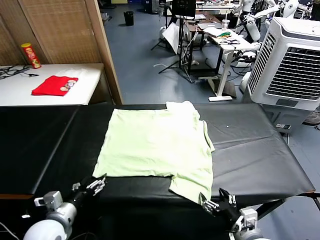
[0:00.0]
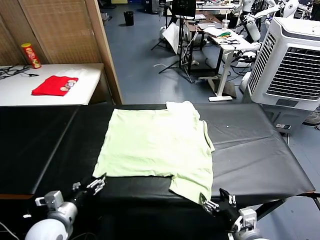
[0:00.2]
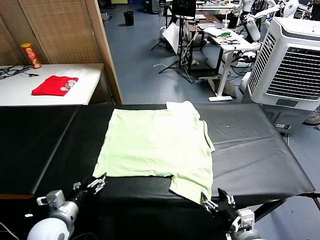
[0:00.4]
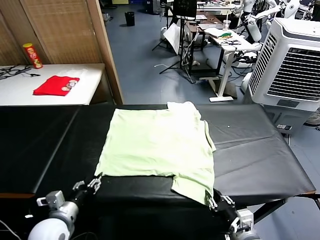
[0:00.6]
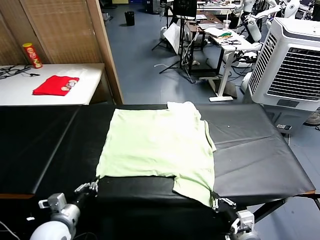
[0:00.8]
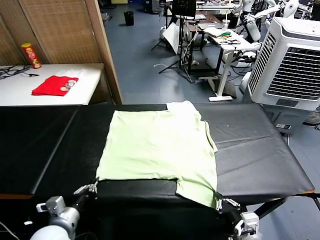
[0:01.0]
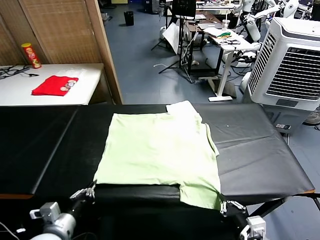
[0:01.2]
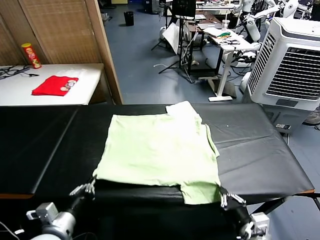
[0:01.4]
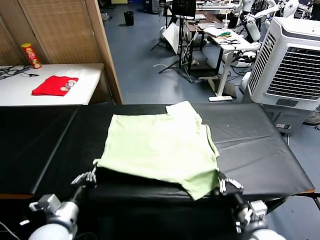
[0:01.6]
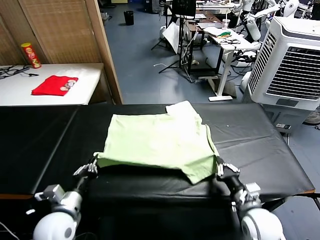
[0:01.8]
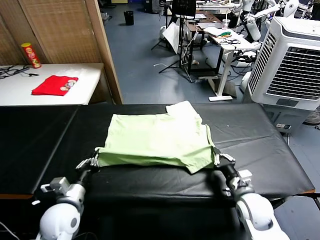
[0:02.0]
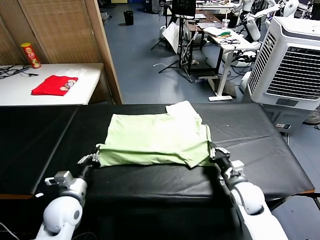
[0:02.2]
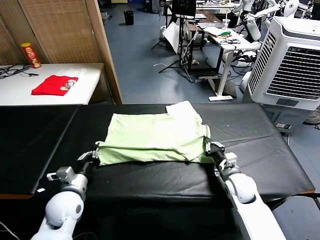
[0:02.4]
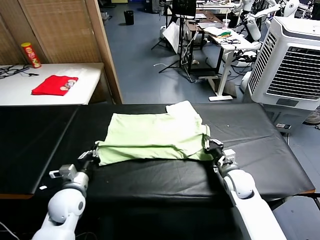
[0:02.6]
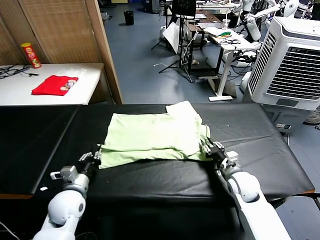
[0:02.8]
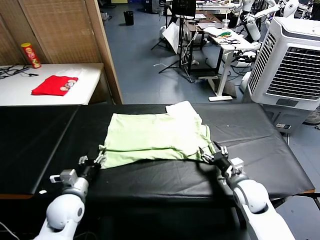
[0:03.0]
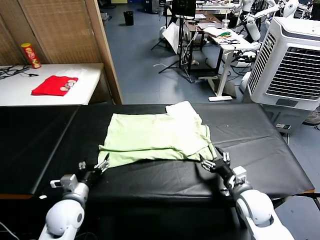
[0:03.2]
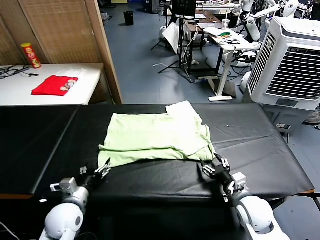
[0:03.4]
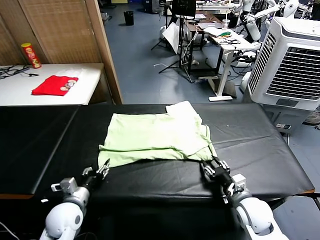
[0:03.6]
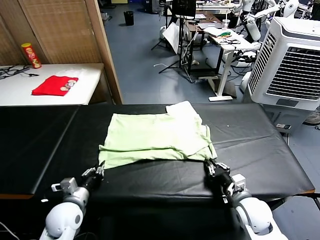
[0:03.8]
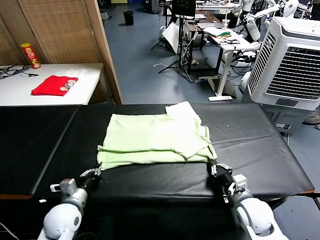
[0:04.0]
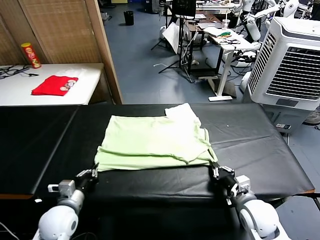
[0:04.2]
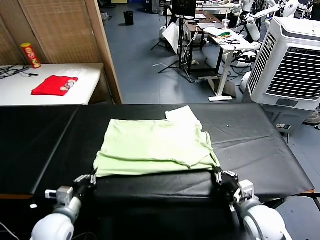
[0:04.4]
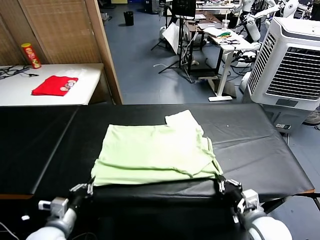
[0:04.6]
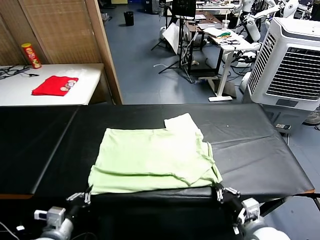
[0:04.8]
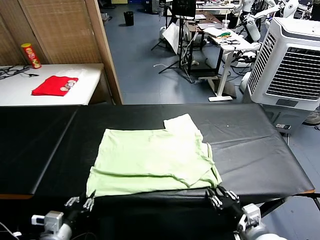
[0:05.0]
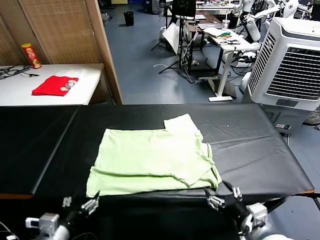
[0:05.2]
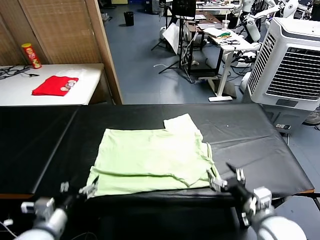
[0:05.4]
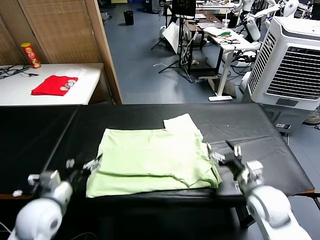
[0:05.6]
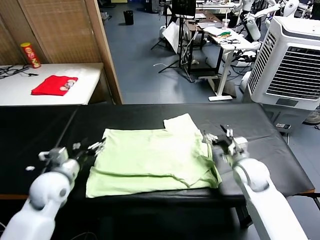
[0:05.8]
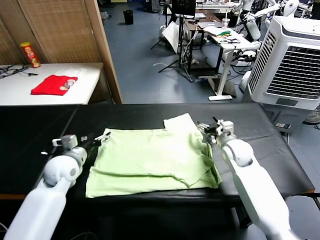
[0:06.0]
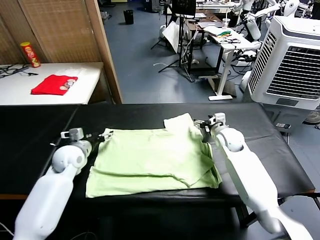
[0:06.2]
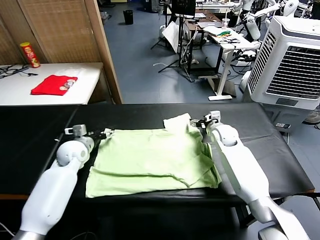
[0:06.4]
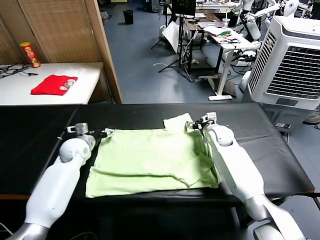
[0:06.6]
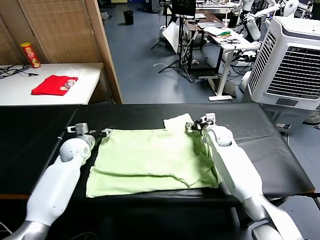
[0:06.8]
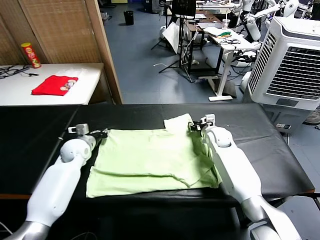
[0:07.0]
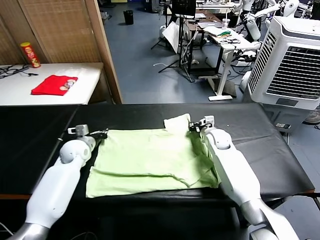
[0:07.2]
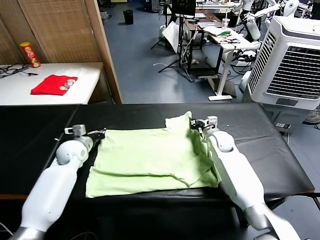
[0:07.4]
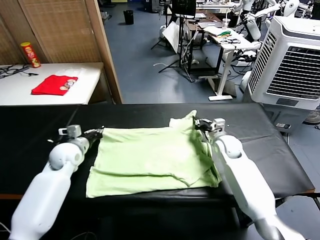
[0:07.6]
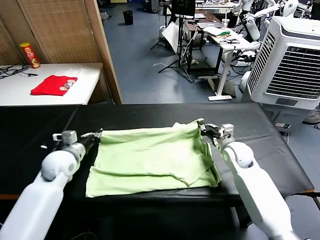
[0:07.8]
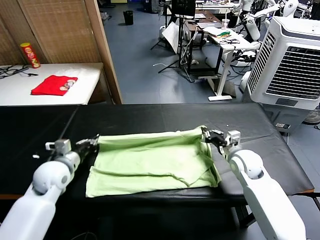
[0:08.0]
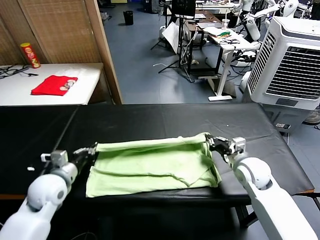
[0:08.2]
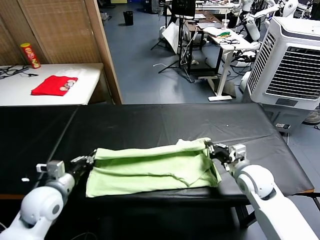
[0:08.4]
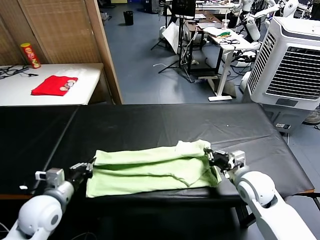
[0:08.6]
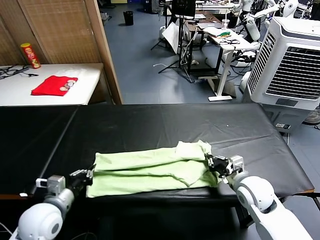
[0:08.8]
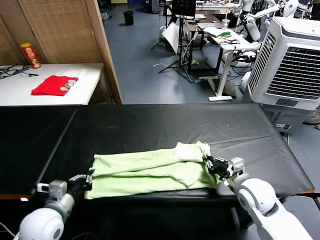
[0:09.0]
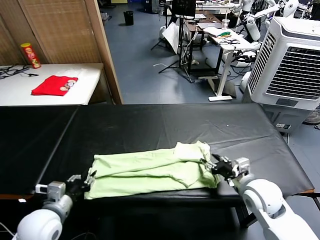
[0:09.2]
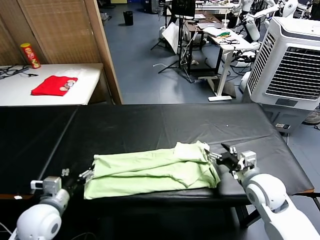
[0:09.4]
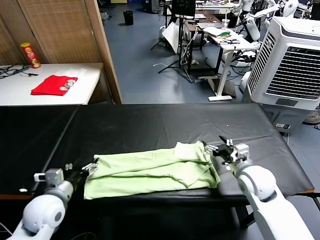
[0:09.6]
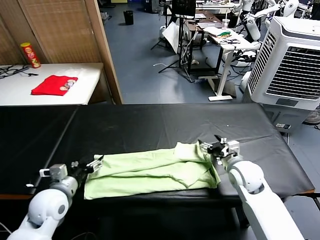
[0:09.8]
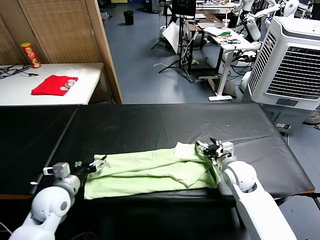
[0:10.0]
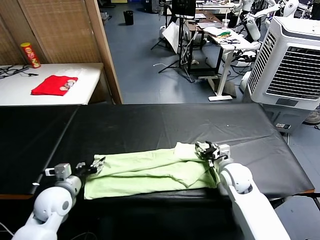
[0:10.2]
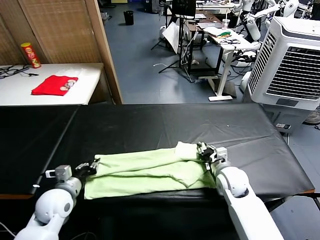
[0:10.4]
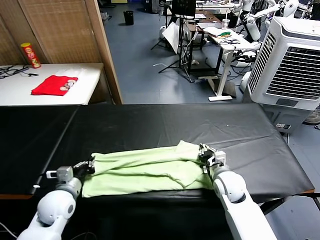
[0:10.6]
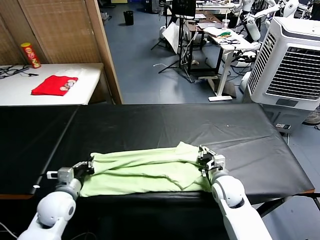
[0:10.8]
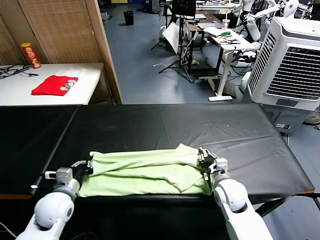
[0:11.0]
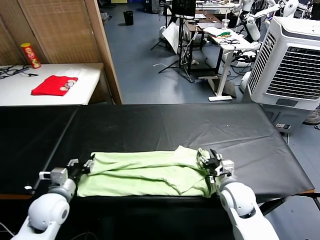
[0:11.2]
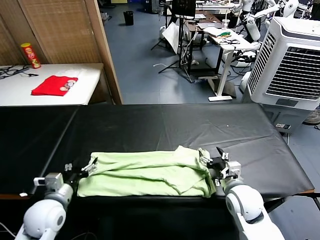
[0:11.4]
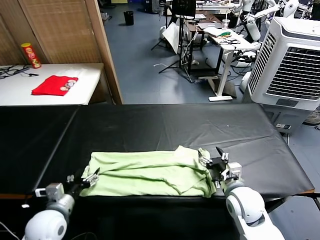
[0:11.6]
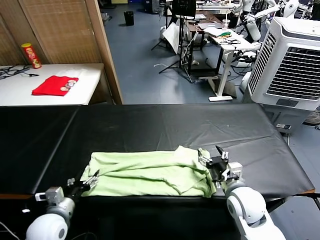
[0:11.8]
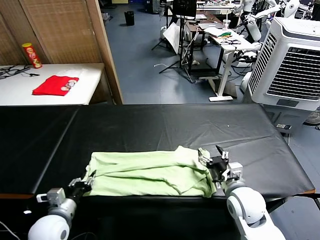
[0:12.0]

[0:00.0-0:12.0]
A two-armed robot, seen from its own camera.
Task of the whole recording: fold and organize the clothes.
Step, 0:00.0 to 0:01.0: use both grippers simultaneously to clamp the lower edge of the clothing fabric.
Step, 0:01.2 to 0:03.0: use both grippers to drag the lower edge of the fabric forward and fold it over the upper edge.
Step, 0:03.2 to 0:05.2: Drag the clothes downward with both gripper.
Step, 0:05.4 to 0:07.0: use both grippers simultaneously to clamp the upper edge of the clothing fabric.
Step, 0:07.2 to 0:09.2: use both grippers to drag the upper edge of the fabric backward and fold it over the lower edge.
0:01.6 to 0:03.0: Both grippers move forward, some 5 cm. The right gripper opens up, while the left gripper opens its fingers.
0:03.0 to 0:04.4: Both grippers move backward, approximately 10 cm. The right gripper closes its fingers, while the left gripper closes.
0:04.4 to 0:06.0: Both grippers travel together forward, roughly 25 cm. The left gripper opens, while the right gripper opens.
0:06.0 to 0:07.6: The left gripper travels forward and back again, approximately 10 cm each way, and closes its fingers, while the right gripper closes up.
0:07.6 to 0:09.0: The grippers both shift backward by roughly 20 cm.
0:09.0 to 0:10.4: The left gripper moves forward, approximately 5 cm, and opens, then closes once more; the right gripper shifts about 10 cm forward and downward, and opens, then closes again.
0:10.4 to 0:12.0: The two grippers go about 10 cm backward. The left gripper opens and closes again. Meanwhile the right gripper opens.

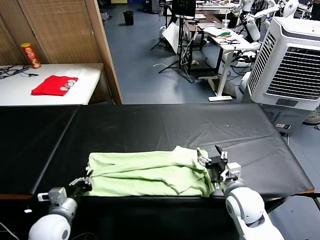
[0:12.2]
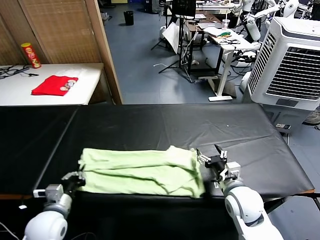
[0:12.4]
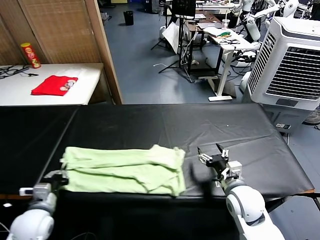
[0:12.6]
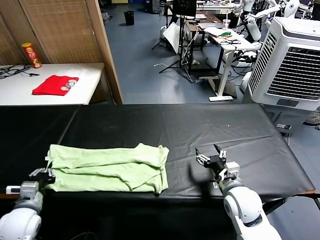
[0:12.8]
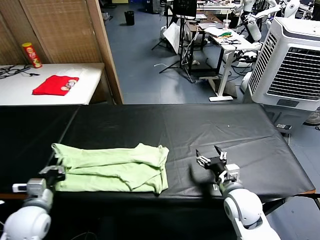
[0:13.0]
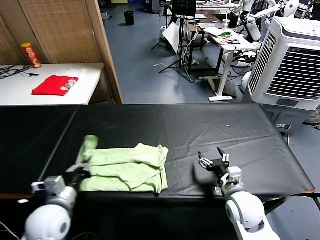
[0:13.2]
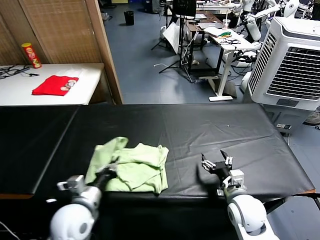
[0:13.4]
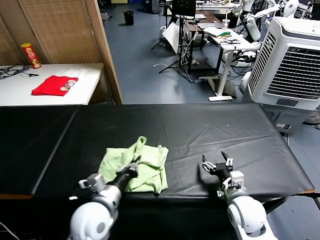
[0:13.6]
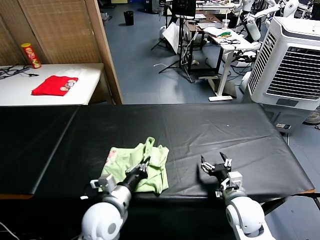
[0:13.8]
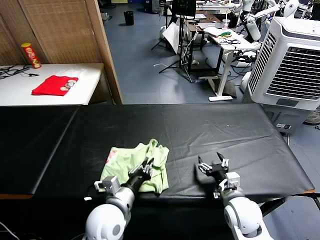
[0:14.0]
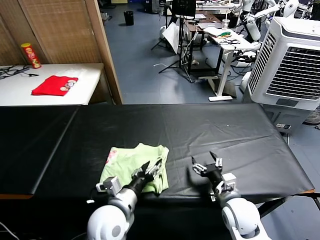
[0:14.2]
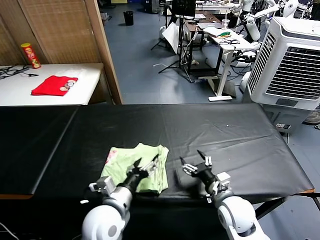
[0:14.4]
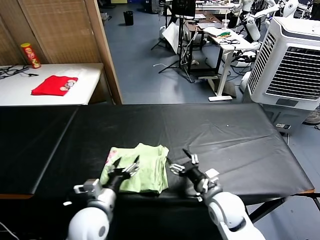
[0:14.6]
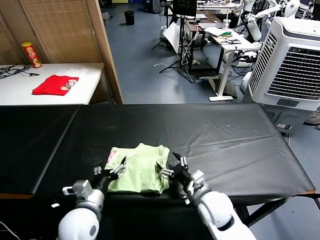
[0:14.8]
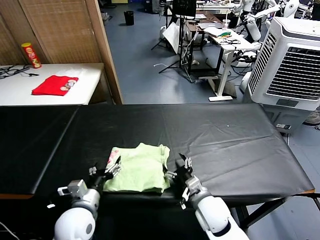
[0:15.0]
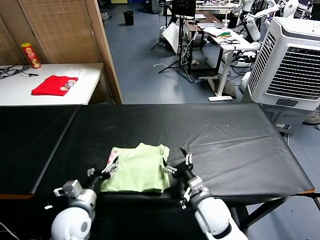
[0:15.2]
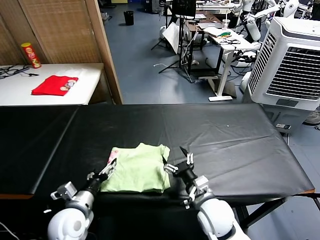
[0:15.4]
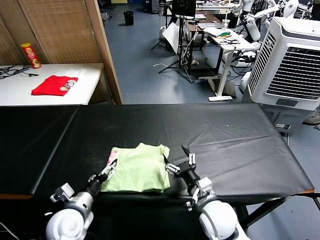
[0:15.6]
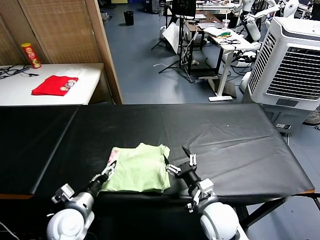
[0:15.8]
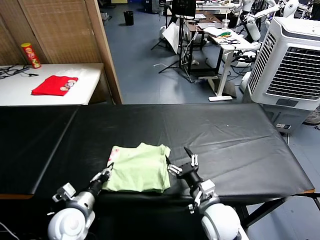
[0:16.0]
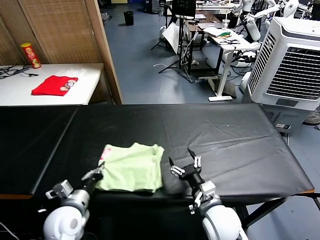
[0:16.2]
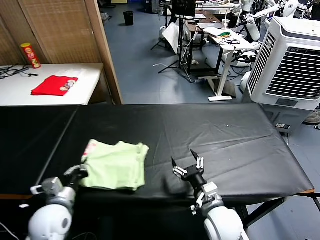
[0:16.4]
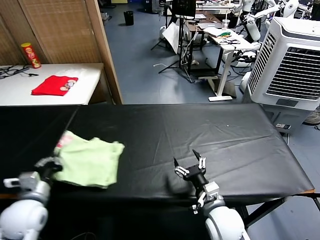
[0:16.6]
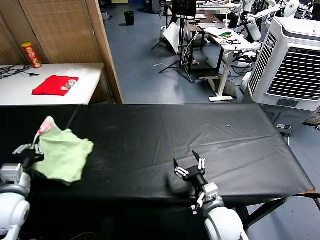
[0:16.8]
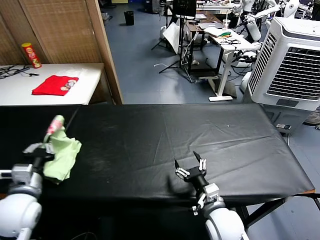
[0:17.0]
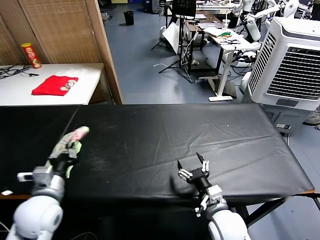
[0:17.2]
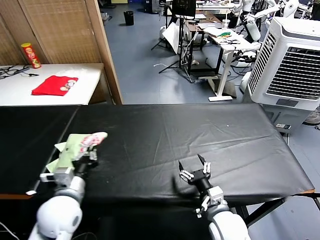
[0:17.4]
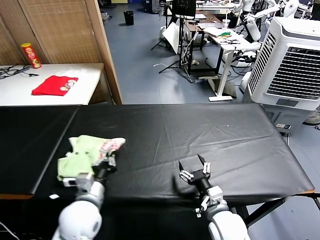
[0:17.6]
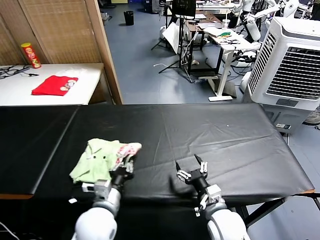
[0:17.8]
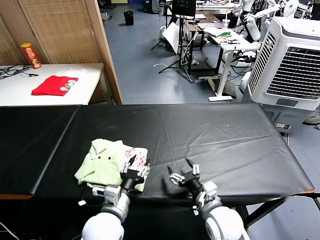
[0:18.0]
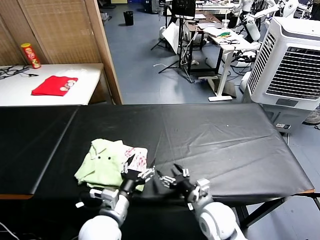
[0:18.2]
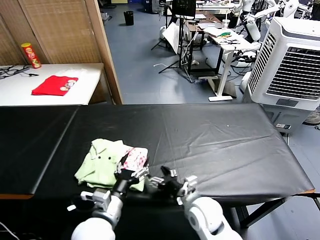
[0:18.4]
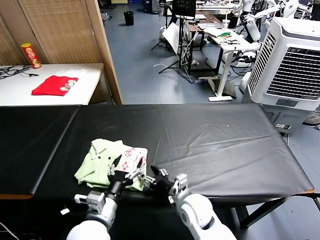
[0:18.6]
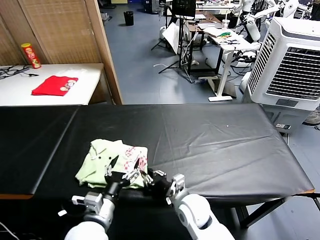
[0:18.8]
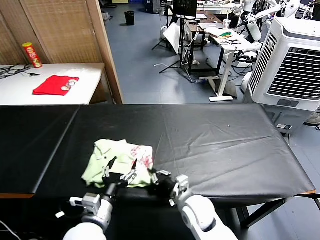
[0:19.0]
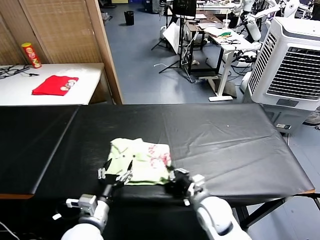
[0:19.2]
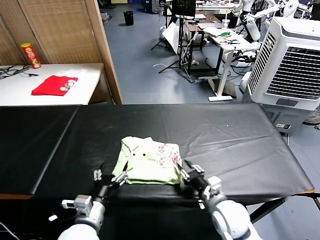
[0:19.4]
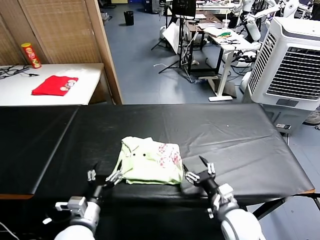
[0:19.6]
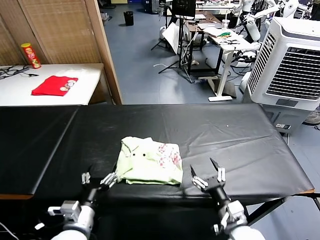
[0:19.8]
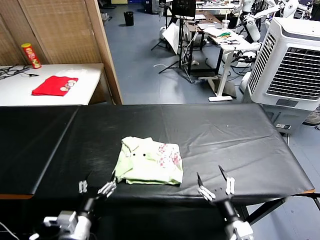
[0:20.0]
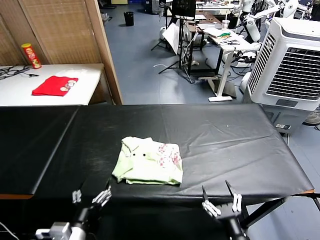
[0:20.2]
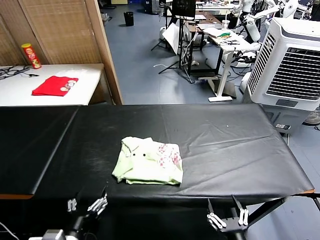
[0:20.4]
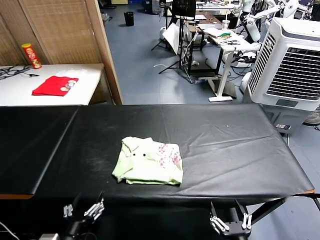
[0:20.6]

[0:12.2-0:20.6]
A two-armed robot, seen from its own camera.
Task of the whole recording: fold and organize the clothes.
Step, 0:12.6 to 0:14.2: use the left gripper to drag the left edge of the fabric to the left and folds it over the right edge.
Step, 0:14.4 to 0:18.0: Flip the folded clothes over with left gripper.
Step, 0:18.2 to 0:19.4: Drag the clothes to the center of the table.
0:12.2 to 0:13.6: The left gripper goes roughly 15 cm to the right and upward.
0:13.6 to 0:15.0: The right gripper travels to the left by about 10 cm. Meanwhile the left gripper is displaced to the left by approximately 5 cm, and opens up.
0:15.0 to 0:16.4: The left gripper heads to the left, covering about 5 cm, and closes.
0:16.4 to 0:17.8: The left gripper heads to the right, covering approximately 15 cm.
0:17.8 to 0:19.2: The left gripper opens its fingers, while the right gripper closes its fingers.
0:19.2 to 0:20.6: The right gripper goes approximately 20 cm backward, and opens, while the left gripper heads backward, covering roughly 10 cm.

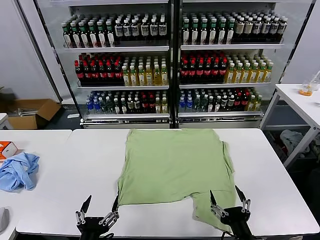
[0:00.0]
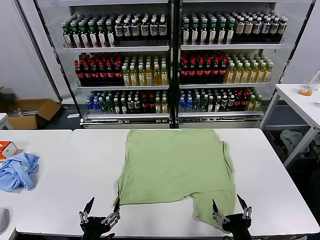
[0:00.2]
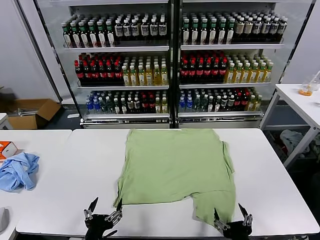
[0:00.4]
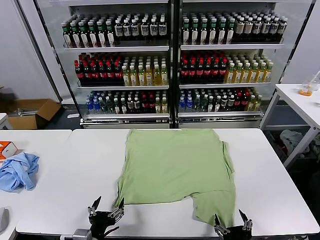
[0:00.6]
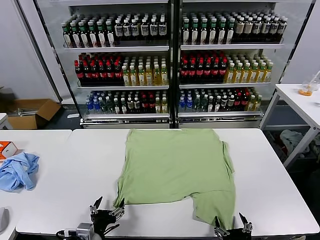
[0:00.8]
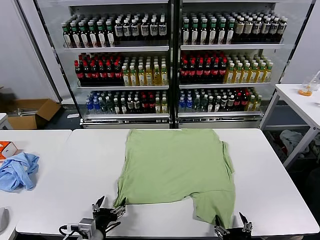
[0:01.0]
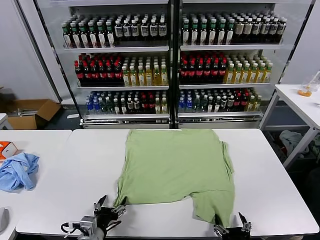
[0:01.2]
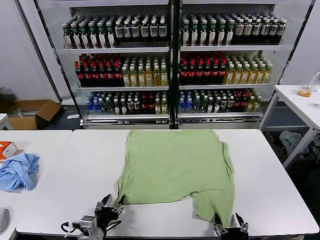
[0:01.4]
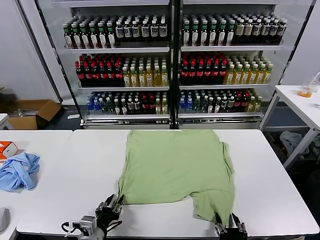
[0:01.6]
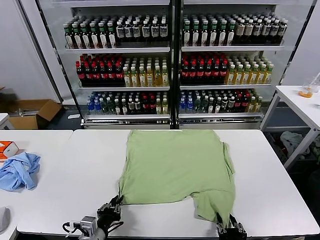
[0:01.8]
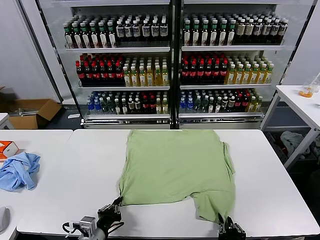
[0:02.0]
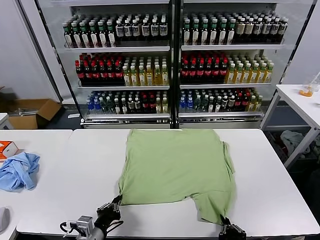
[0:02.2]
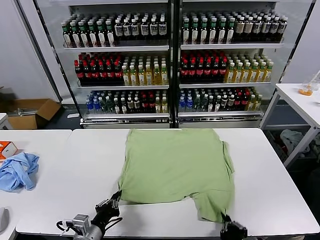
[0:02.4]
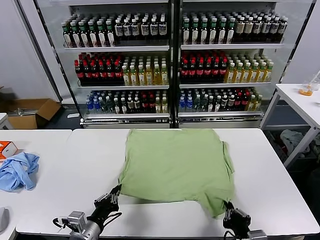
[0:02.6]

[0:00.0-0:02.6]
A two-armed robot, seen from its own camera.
Task of the whole recording: fold and organize the clothes.
Step, 0:00.0 to 0:02.2: use both grippers simultaneously to clamp the lower edge of the clothing fabric.
0:01.2 to 0:02.6: The left gripper closes. The right gripper shifts by some 5 cm, and closes up.
